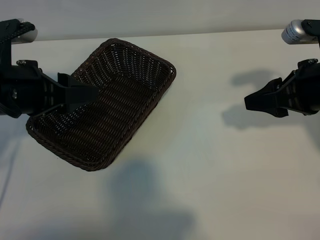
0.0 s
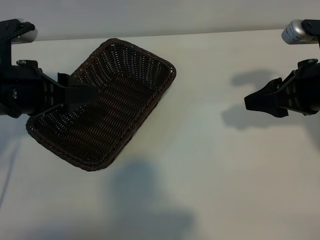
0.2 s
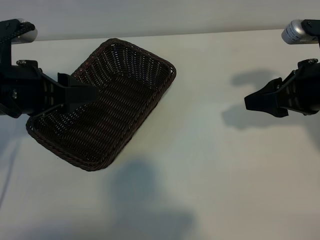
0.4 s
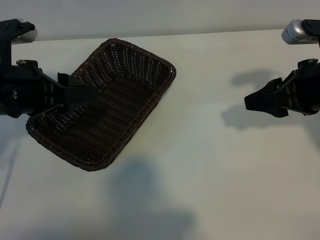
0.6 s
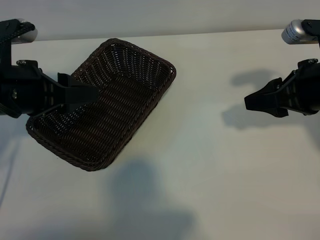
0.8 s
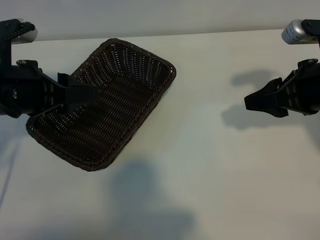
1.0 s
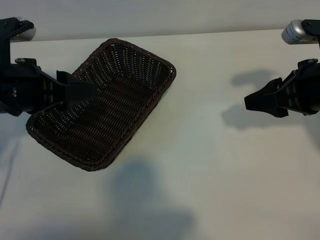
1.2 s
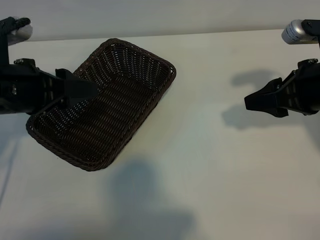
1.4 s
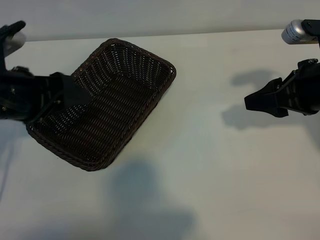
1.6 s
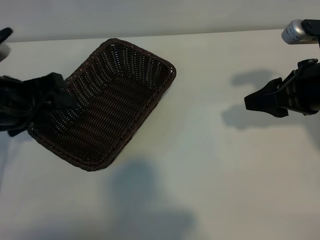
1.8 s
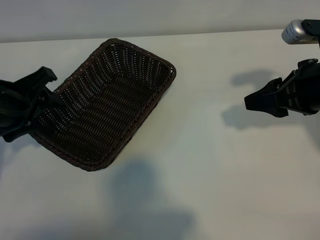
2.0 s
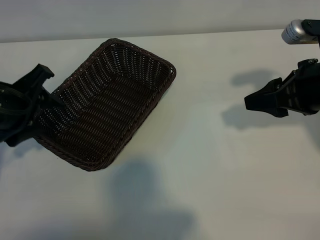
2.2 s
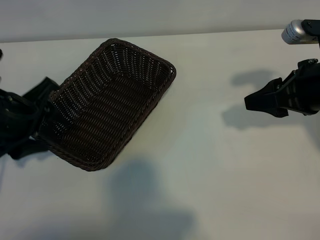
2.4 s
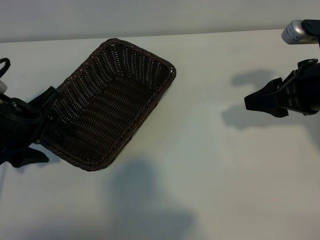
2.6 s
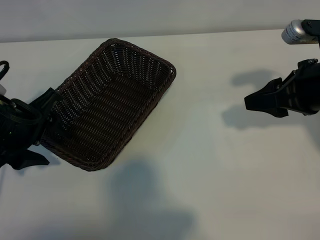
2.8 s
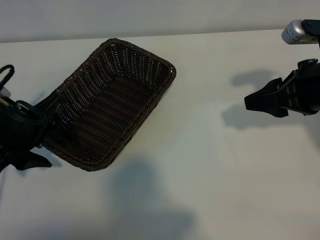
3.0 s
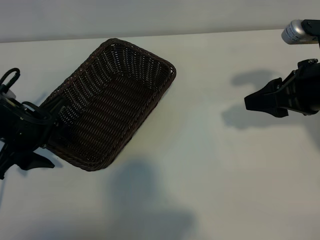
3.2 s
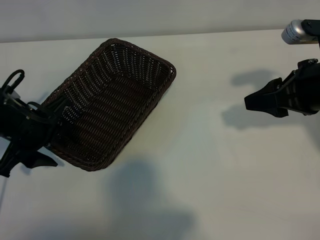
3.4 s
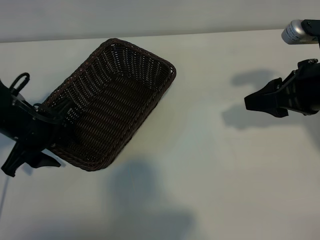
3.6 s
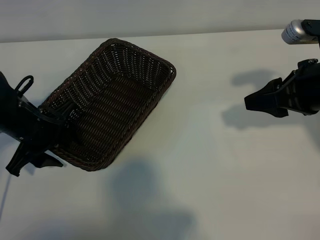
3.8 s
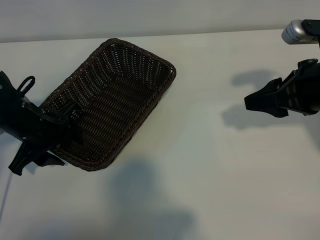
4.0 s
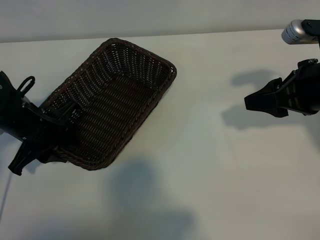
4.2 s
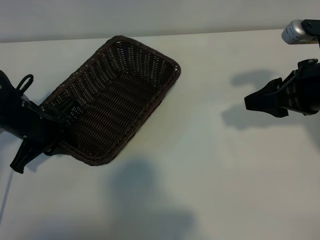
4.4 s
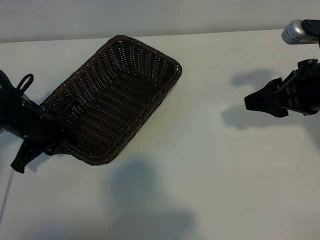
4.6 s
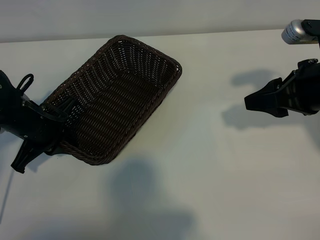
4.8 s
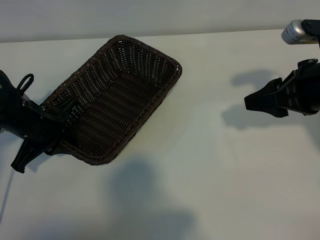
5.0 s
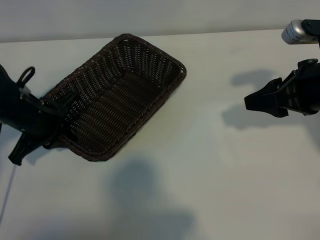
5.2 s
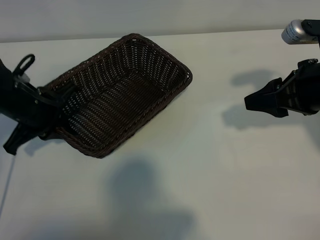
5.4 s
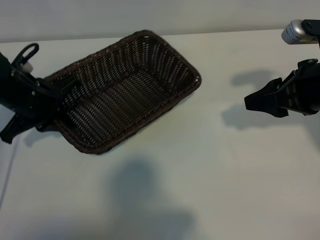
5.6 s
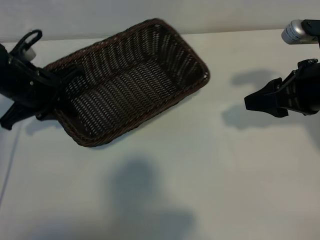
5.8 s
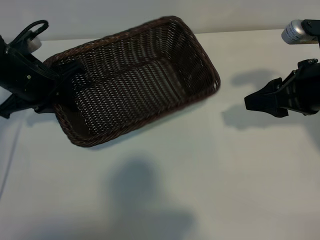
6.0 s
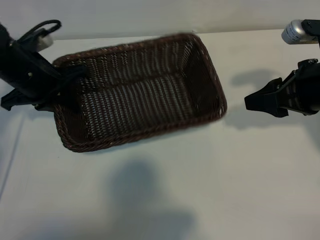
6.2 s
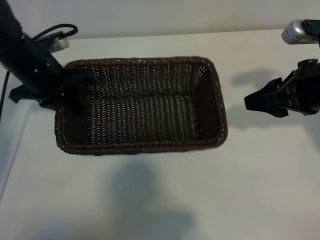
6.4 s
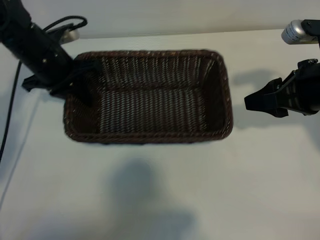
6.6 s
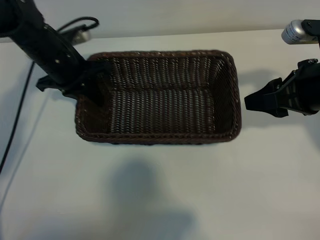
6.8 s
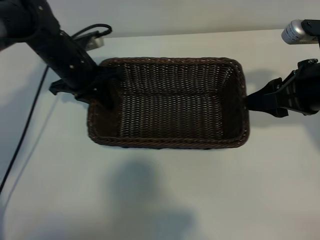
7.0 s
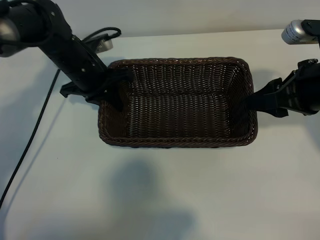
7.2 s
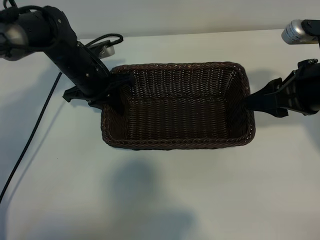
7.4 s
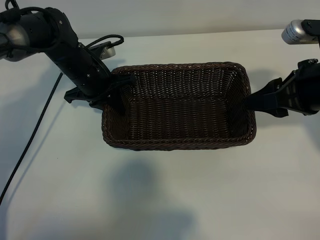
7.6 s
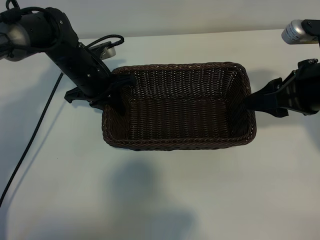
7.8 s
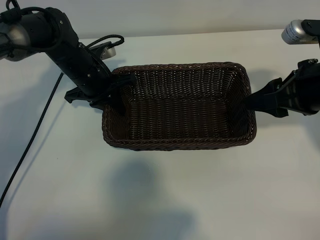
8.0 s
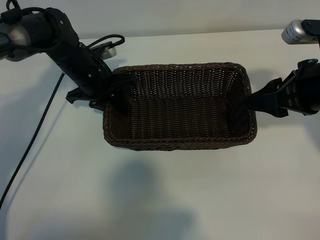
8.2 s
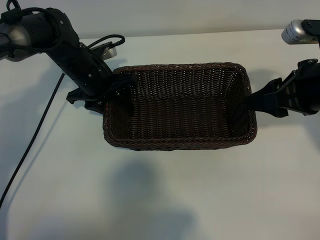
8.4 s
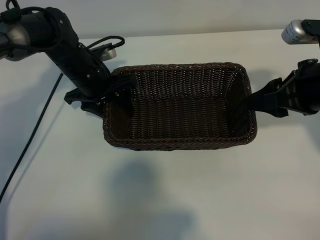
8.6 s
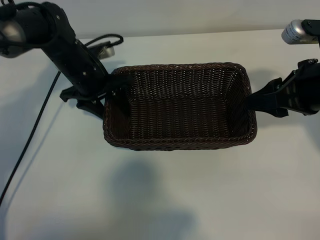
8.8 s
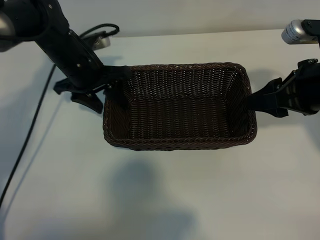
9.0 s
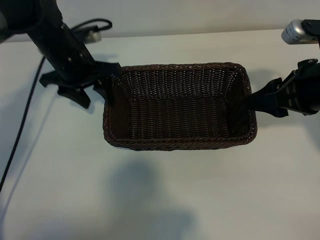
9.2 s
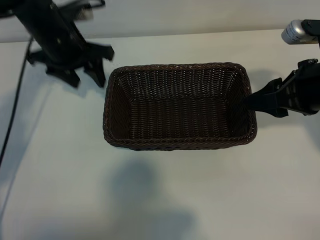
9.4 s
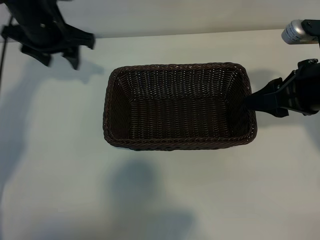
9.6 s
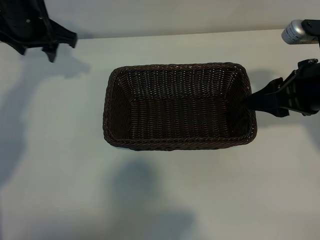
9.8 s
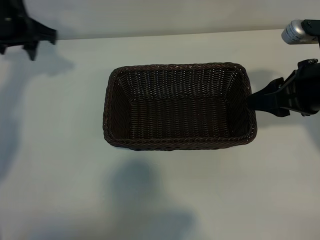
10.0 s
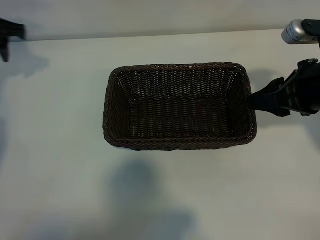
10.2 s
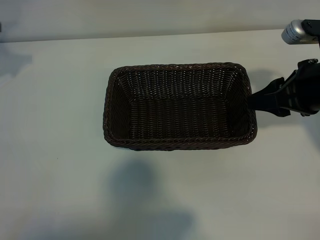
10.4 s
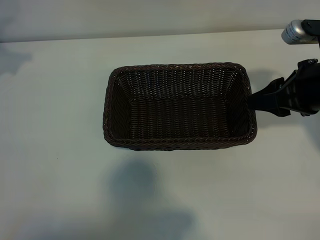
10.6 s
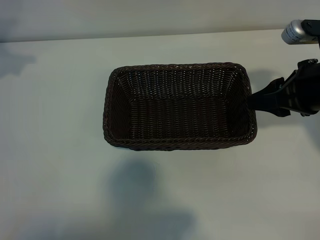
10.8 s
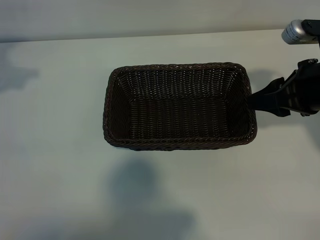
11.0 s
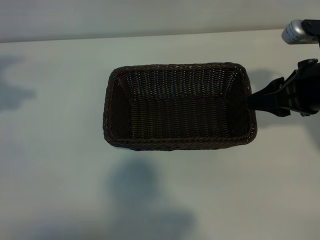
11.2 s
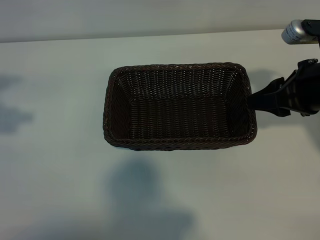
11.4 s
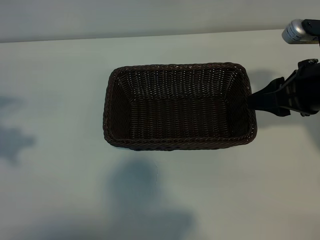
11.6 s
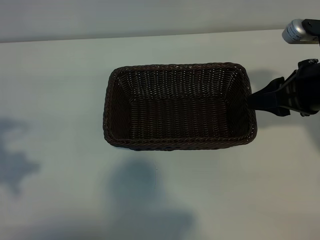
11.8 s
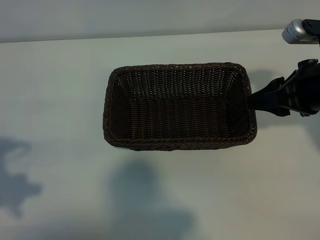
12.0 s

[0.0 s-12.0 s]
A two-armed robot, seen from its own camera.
Task of the whole recording: pick up the banana and put it into the basket.
Step, 1.2 to 4.8 s: Grasp the basket with the left gripper.
Step, 5.0 to 9.0 s: Place the basket in the center of the table with the left gripper.

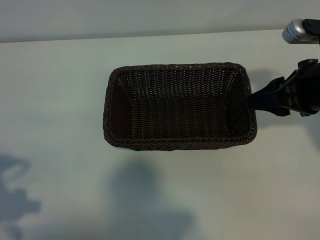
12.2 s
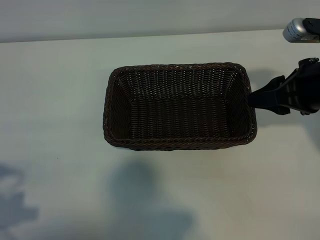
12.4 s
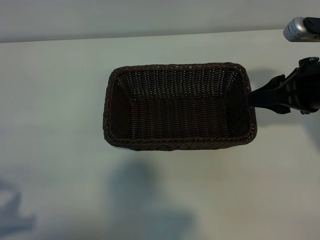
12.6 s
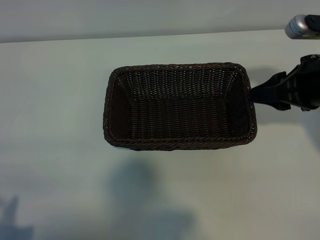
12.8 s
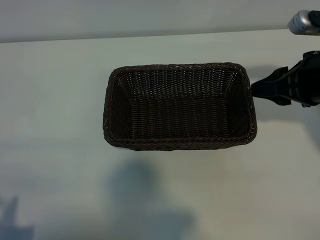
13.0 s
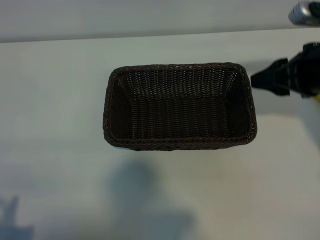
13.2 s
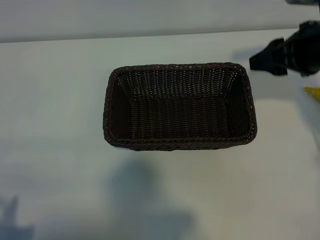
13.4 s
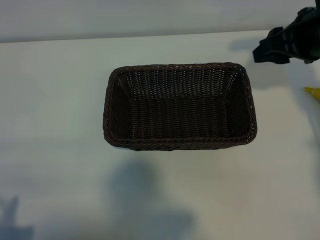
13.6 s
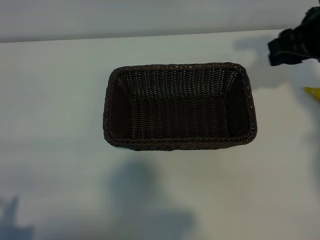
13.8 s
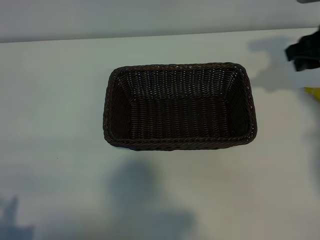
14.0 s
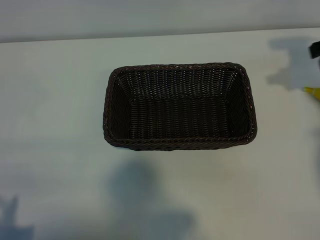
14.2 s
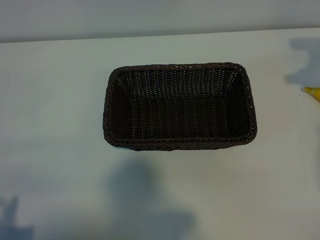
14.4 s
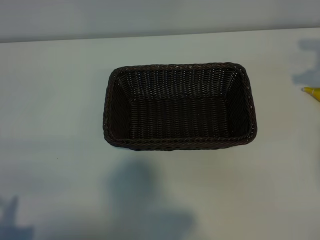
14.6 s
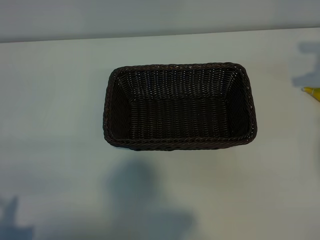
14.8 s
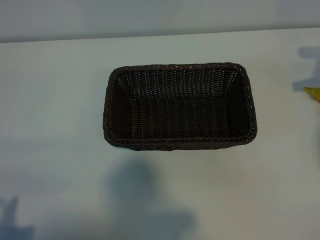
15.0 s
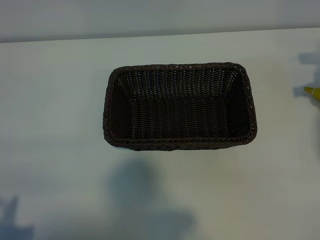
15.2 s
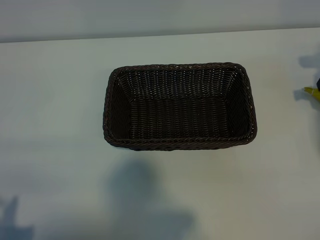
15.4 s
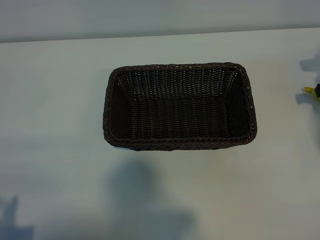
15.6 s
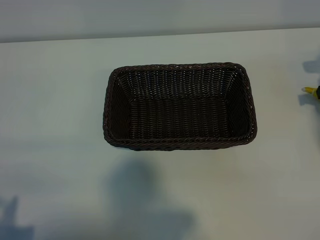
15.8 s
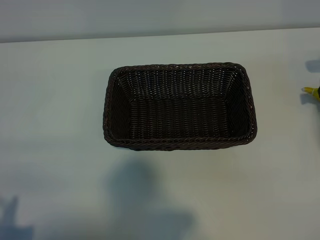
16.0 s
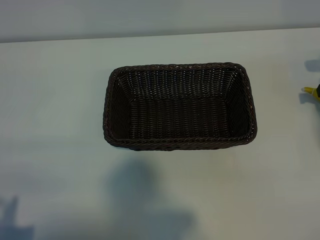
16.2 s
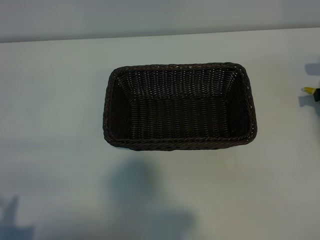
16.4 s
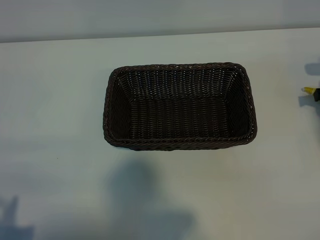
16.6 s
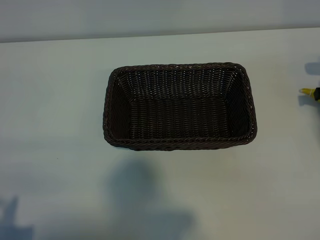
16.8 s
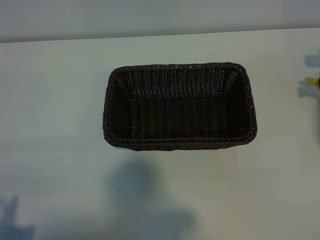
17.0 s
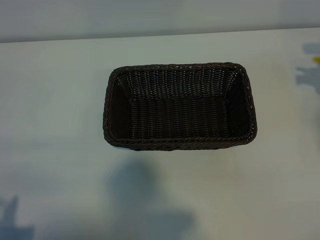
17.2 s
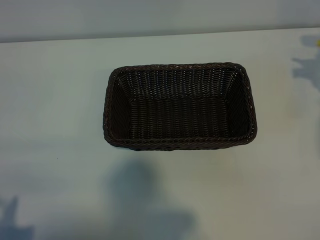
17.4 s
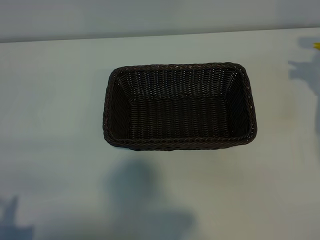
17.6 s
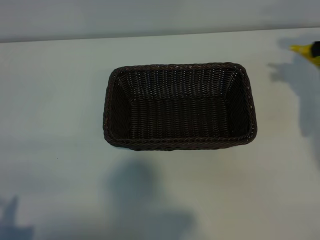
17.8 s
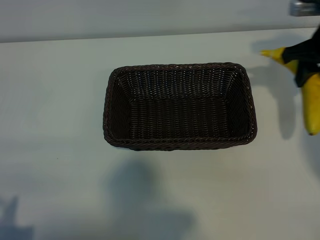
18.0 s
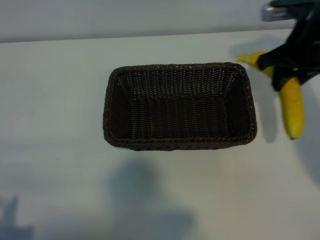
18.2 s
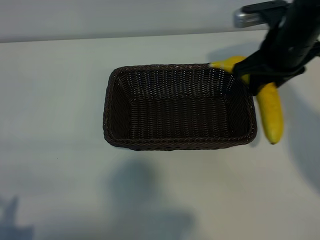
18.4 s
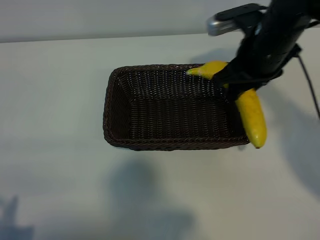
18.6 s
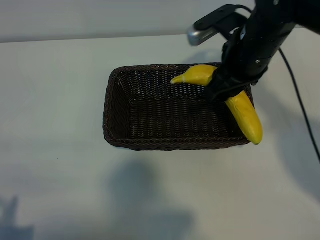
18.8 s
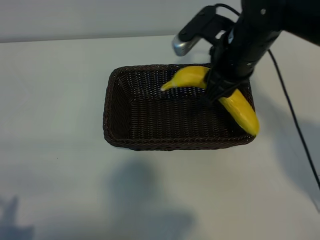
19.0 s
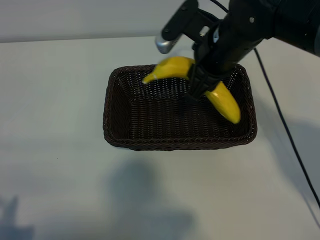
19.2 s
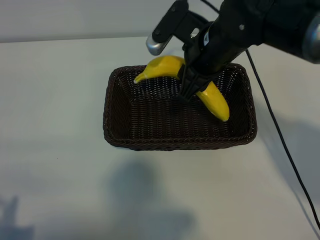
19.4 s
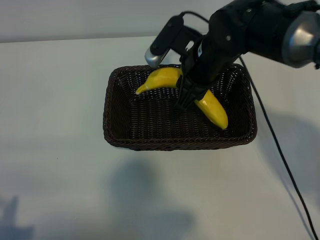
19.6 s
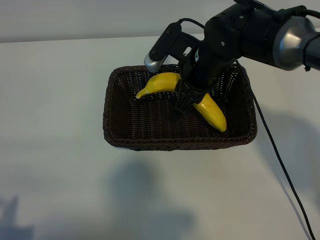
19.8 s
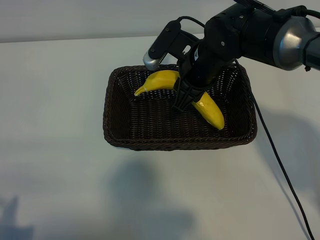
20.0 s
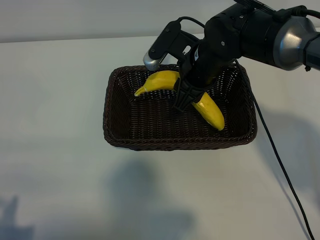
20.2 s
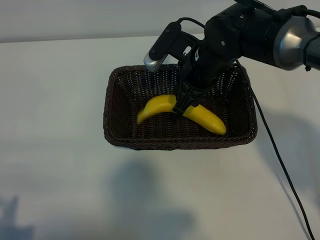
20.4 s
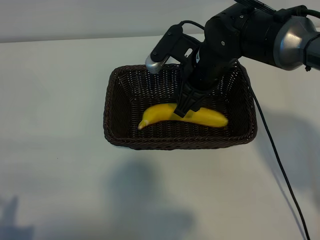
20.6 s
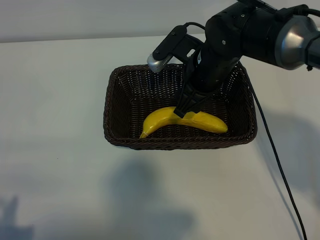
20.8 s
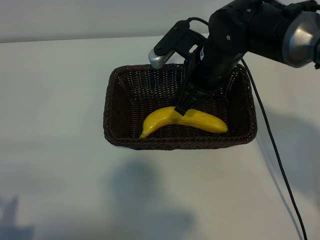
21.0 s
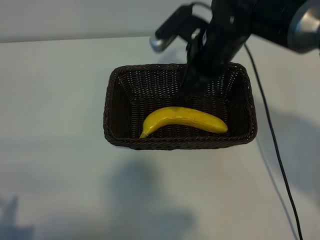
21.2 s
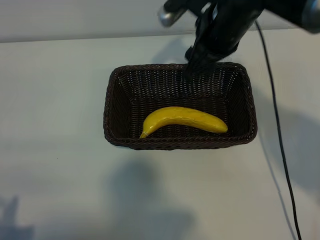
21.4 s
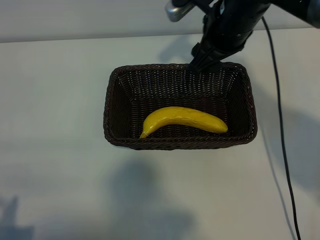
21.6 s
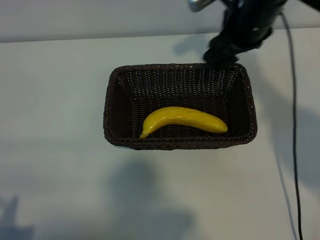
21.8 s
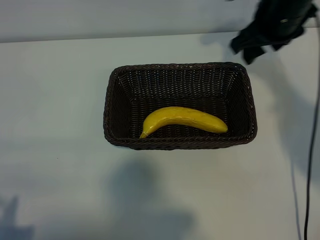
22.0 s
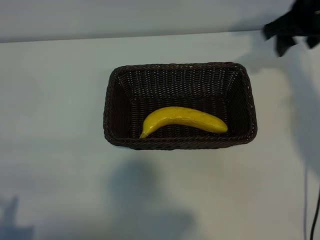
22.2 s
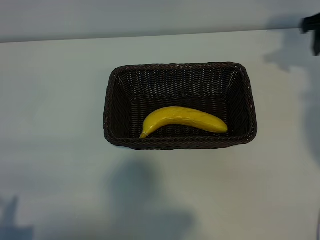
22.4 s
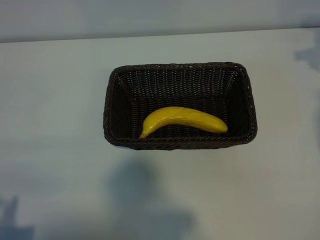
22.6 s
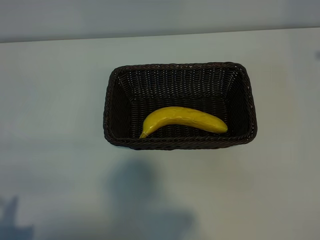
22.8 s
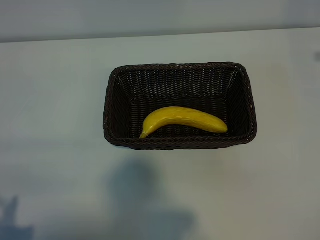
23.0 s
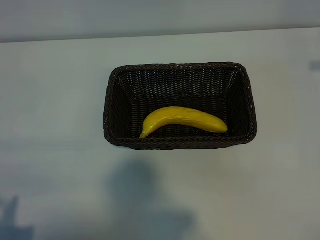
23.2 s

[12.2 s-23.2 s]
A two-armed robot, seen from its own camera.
Task of the whole recording: pick up the banana and put it into the basket.
Step, 12.2 to 16.8 s: Grasp the banana with right gripper.
Step, 17.0 to 20.8 s: Place the banana in the basket with right gripper.
